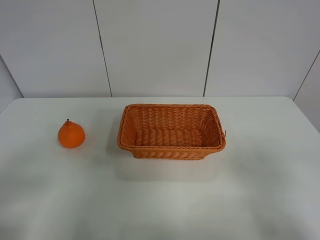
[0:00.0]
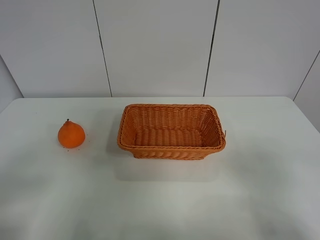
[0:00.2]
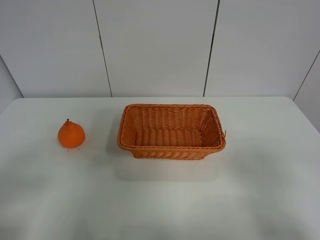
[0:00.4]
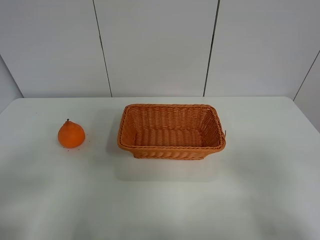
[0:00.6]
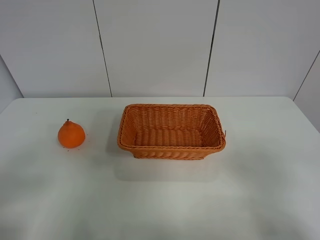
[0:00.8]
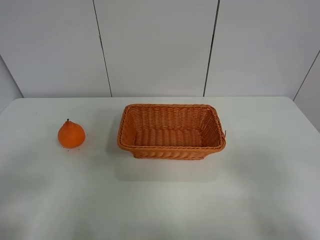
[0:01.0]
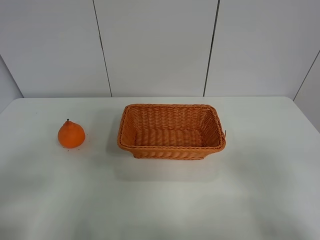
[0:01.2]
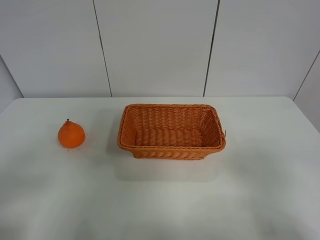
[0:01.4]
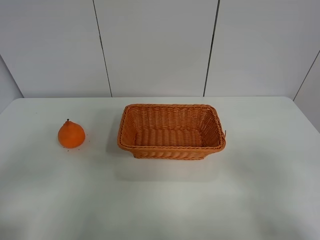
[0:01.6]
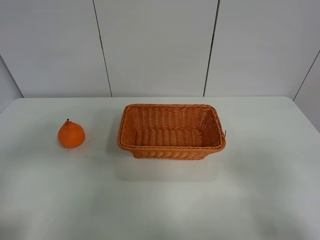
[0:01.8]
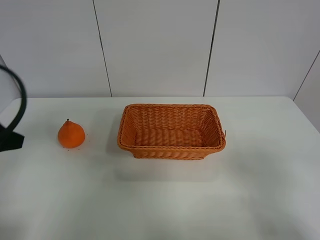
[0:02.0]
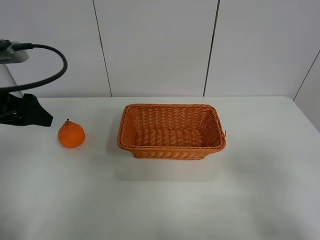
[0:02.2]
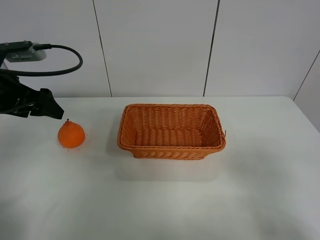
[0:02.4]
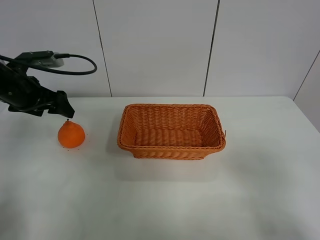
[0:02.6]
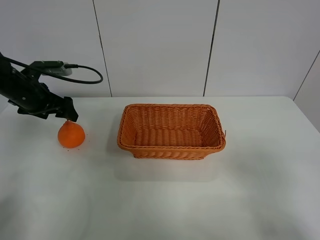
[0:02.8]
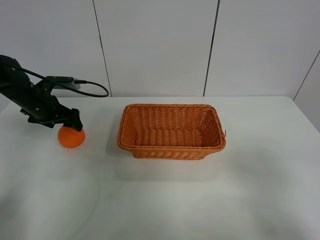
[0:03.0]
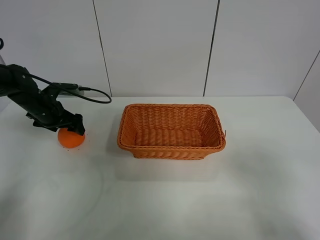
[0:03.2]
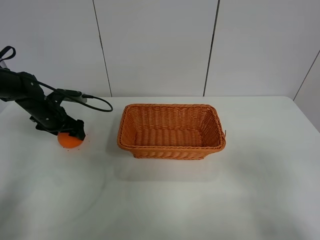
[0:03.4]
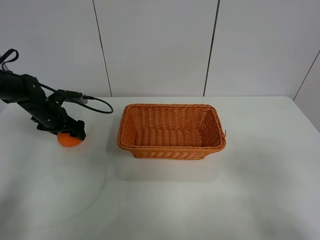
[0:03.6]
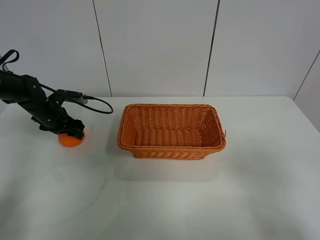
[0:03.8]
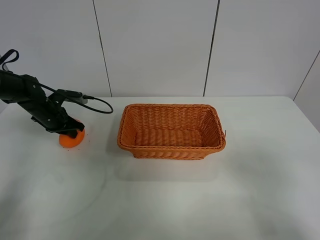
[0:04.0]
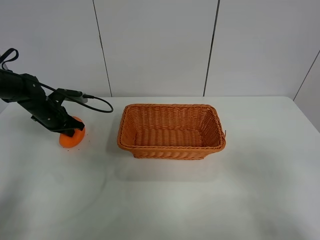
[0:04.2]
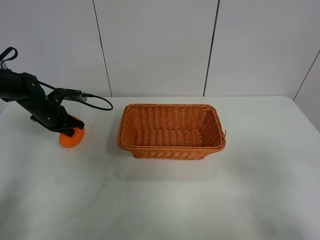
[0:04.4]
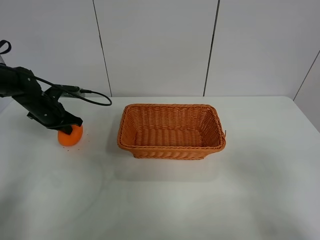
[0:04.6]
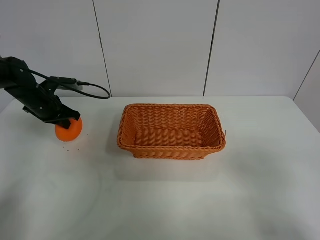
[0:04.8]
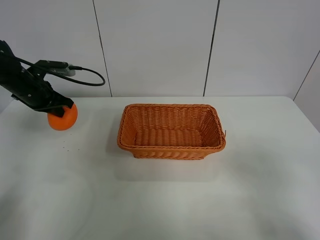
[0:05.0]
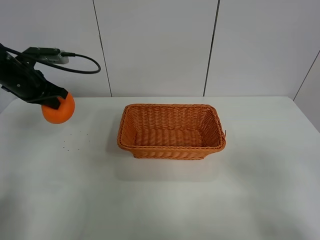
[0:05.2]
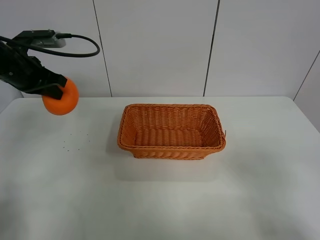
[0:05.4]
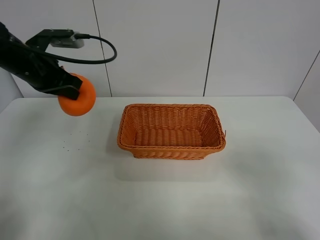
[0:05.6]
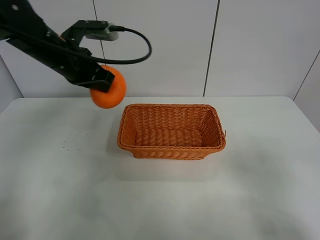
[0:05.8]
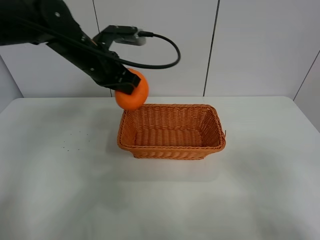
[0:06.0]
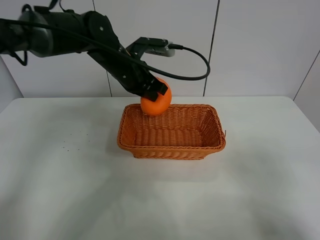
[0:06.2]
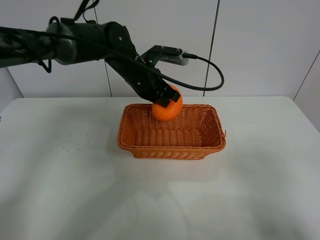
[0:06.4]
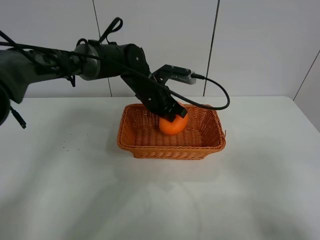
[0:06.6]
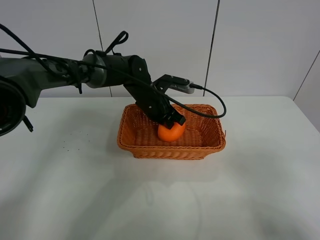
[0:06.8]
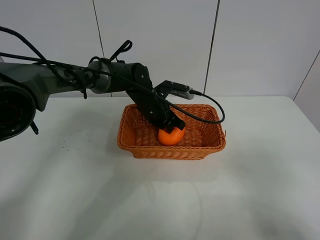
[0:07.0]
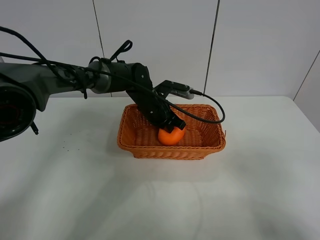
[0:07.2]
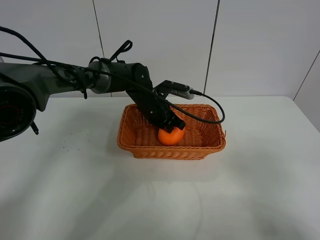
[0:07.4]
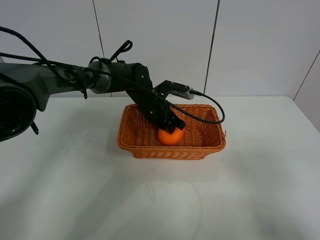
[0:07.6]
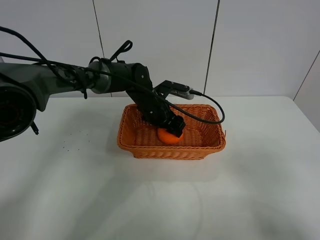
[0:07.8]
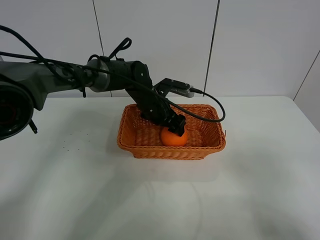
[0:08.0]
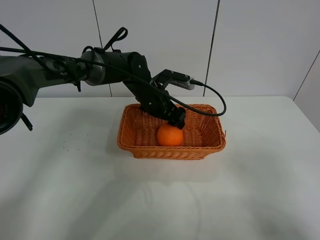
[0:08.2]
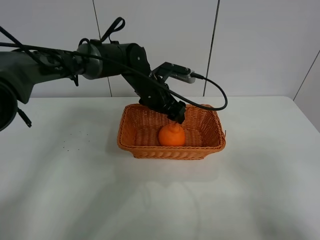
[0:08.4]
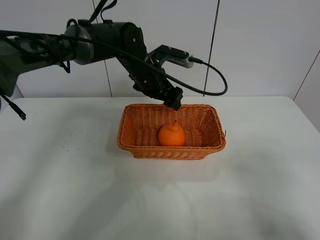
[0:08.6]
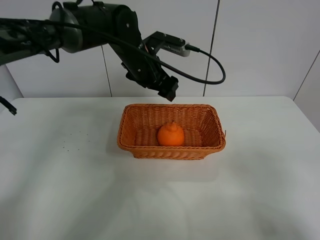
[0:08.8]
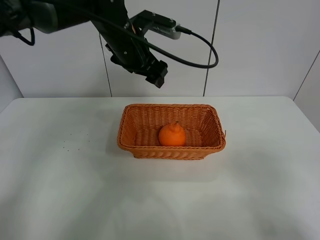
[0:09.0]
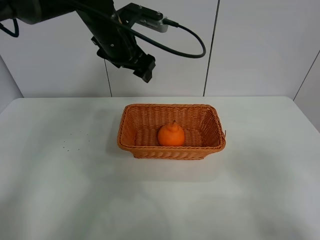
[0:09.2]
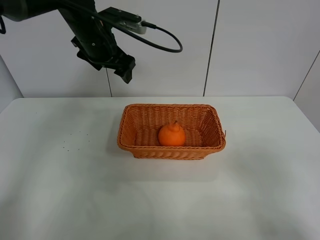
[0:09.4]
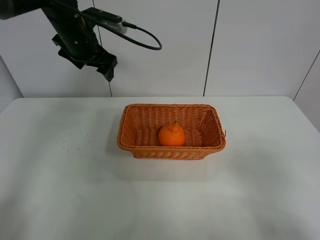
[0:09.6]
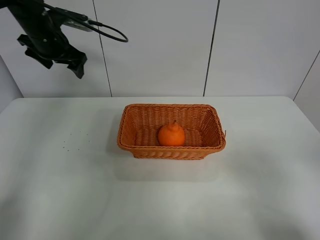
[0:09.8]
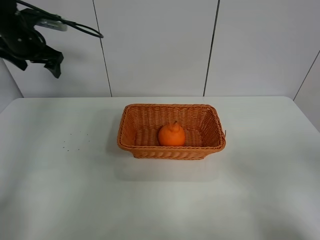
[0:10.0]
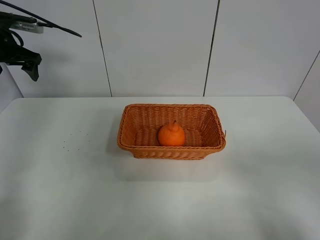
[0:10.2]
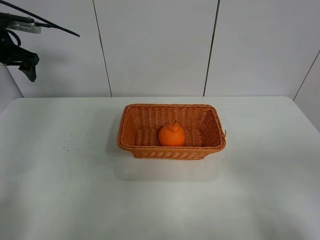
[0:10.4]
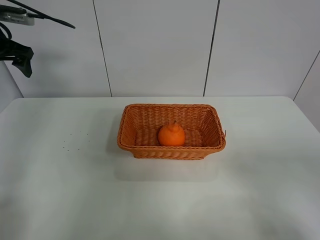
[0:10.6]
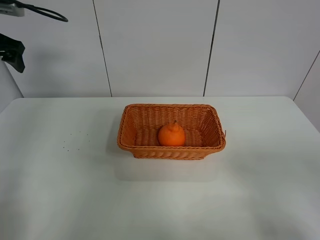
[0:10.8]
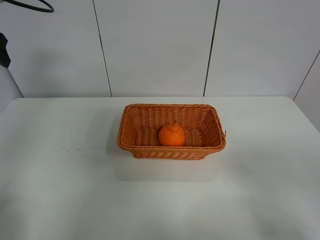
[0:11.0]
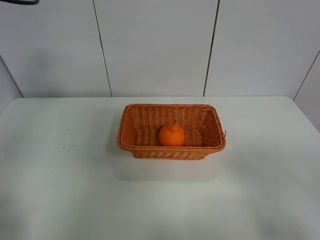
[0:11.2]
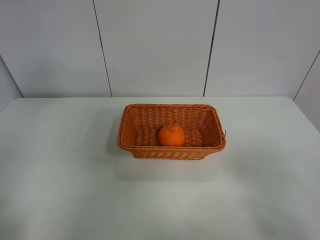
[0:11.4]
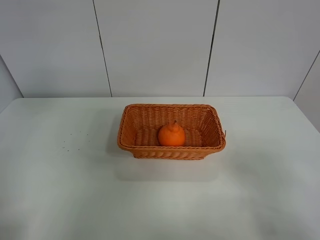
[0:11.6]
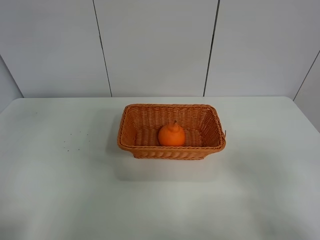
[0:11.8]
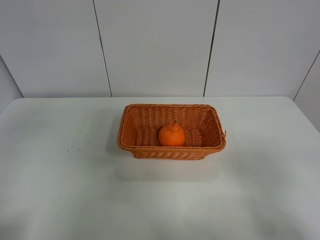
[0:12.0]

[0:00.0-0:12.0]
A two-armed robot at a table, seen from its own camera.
Task of the whole recording: left gripper grabs oranges and puts them in the basket.
Step, 0:00.0 to 0:04.0: Grasp the orange with left gripper.
Step, 0:04.2 to 0:09.4: Place the orange in the basket with left gripper.
0:01.6 to 0:03.0: The left gripper moves forward, roughly 35 cm.
0:03.0 to 0:04.4: The left gripper closes up.
0:04.4 to 0:06.0: The left gripper goes some 25 cm to the right and upward.
0:06.0 to 0:07.6: The left gripper moves downward and to the right, approximately 15 cm.
0:07.6 to 0:09.0: The left gripper is displaced upward by roughly 15 cm, and opens.
0:09.0 to 0:10.4: The left gripper shifts some 30 cm to the left.
0:10.4 to 0:12.0: The left gripper goes approximately 35 cm backward.
